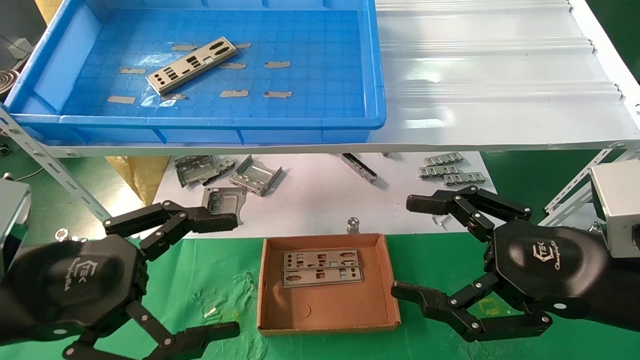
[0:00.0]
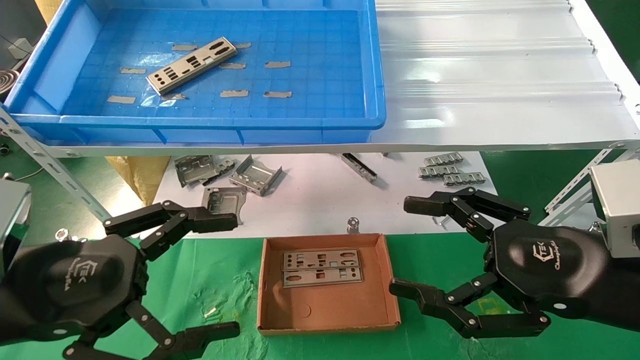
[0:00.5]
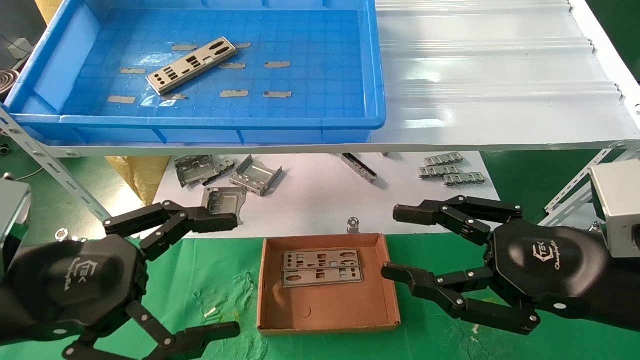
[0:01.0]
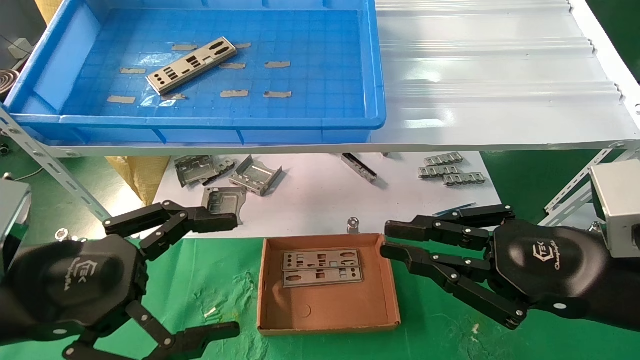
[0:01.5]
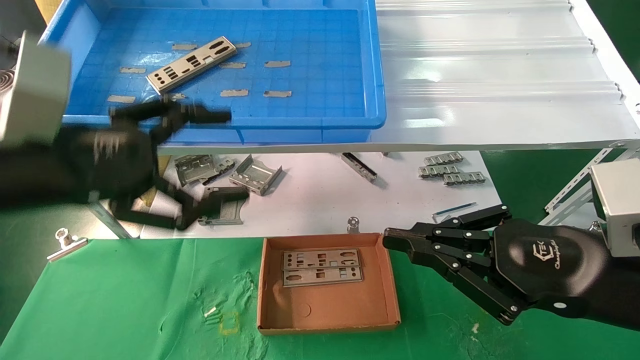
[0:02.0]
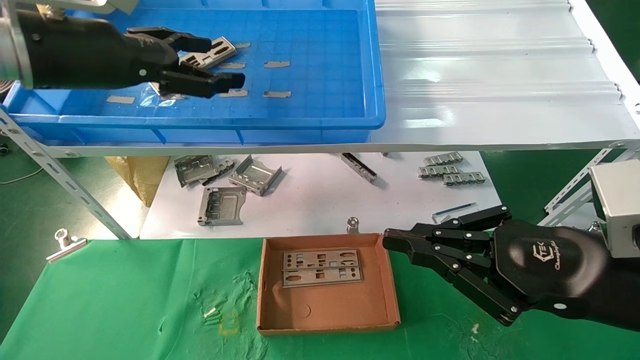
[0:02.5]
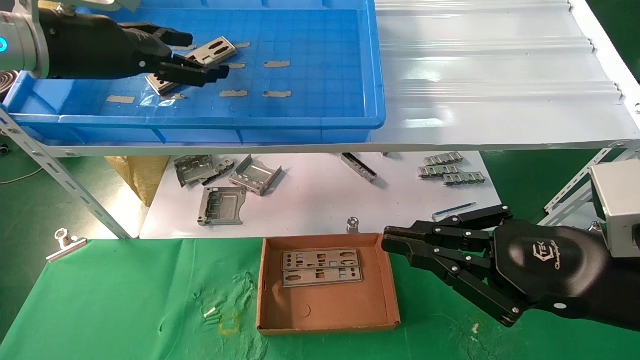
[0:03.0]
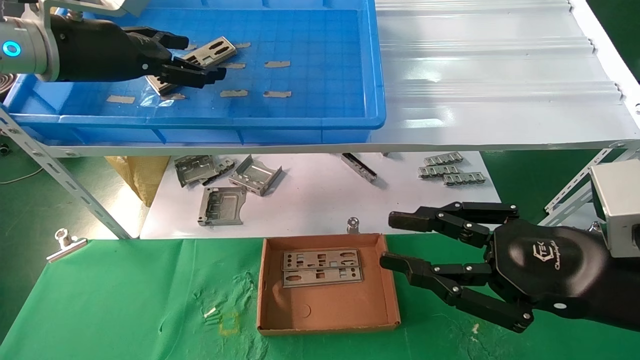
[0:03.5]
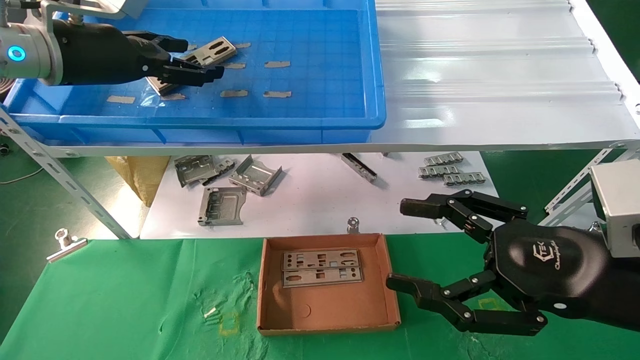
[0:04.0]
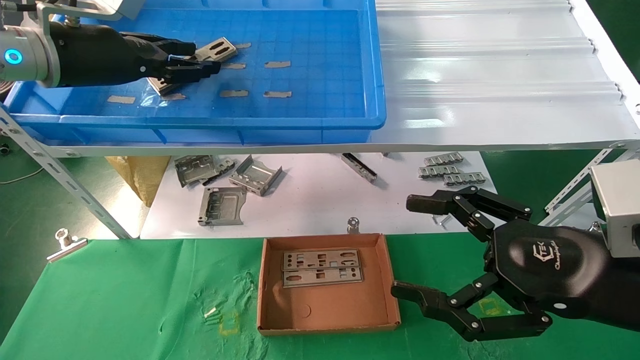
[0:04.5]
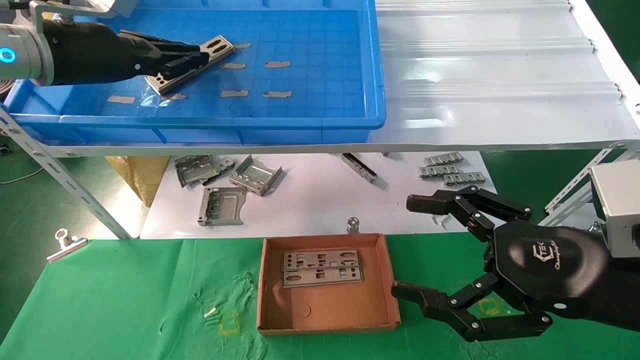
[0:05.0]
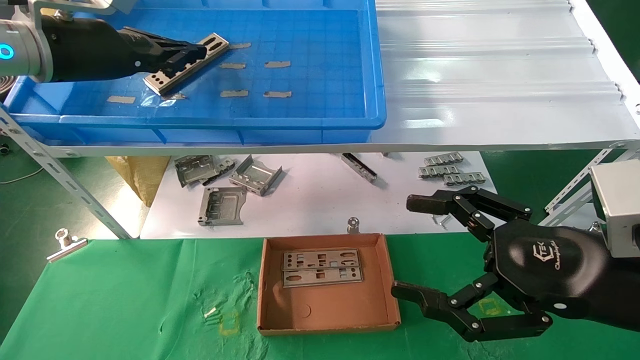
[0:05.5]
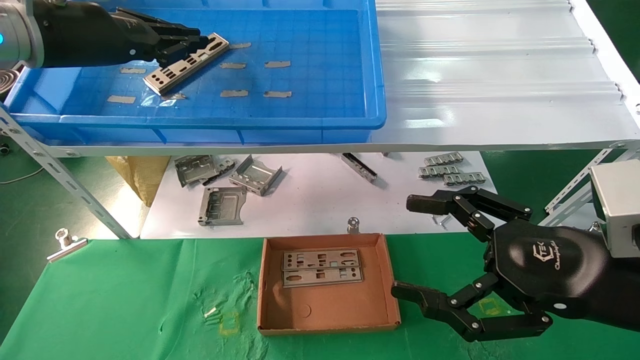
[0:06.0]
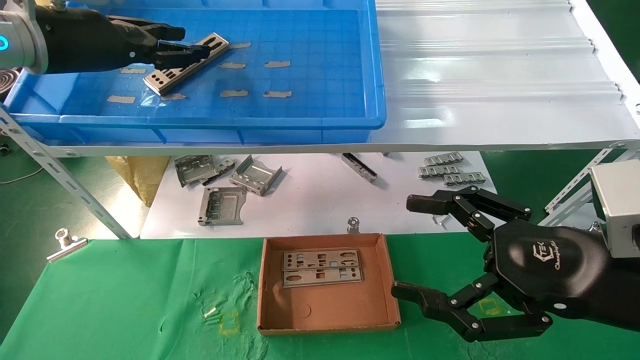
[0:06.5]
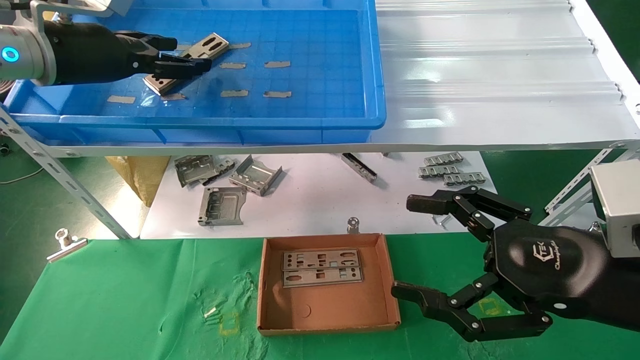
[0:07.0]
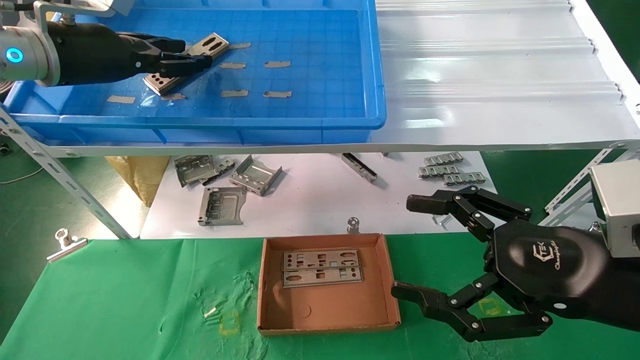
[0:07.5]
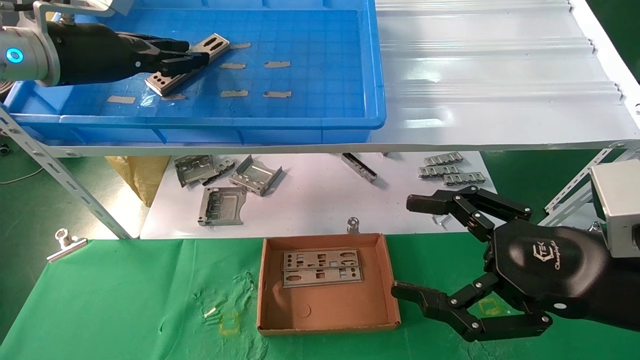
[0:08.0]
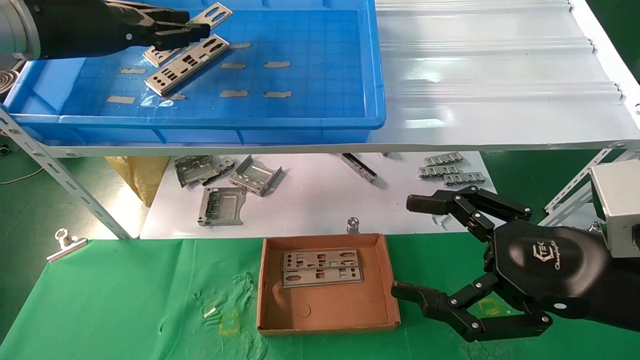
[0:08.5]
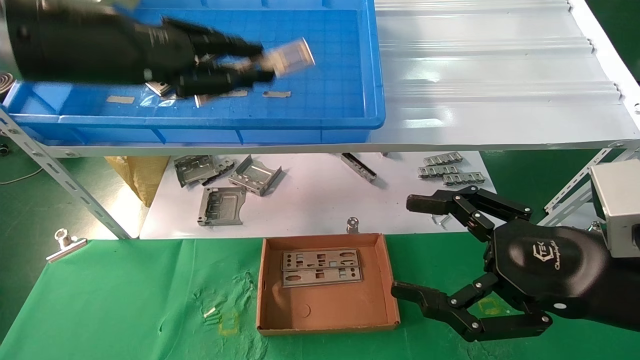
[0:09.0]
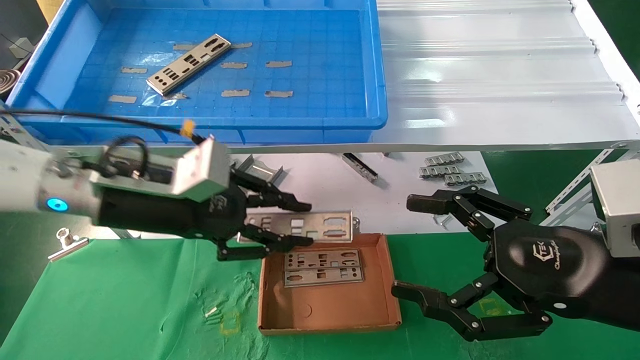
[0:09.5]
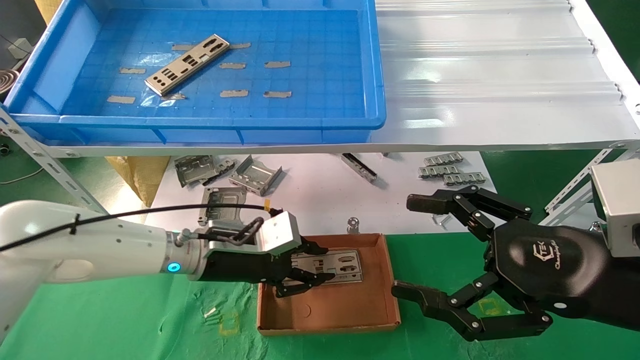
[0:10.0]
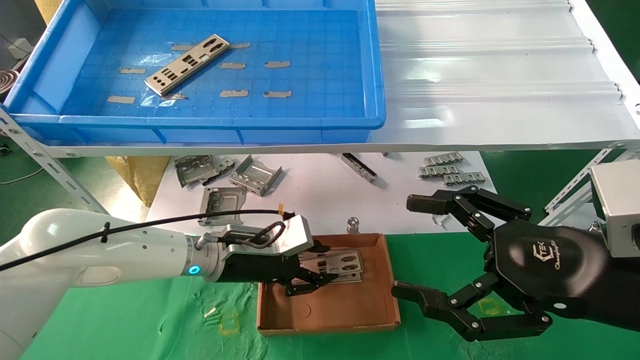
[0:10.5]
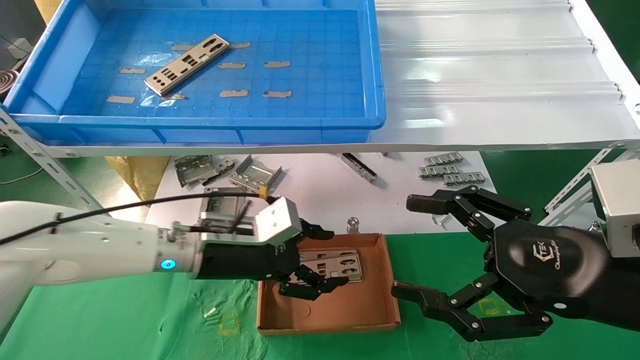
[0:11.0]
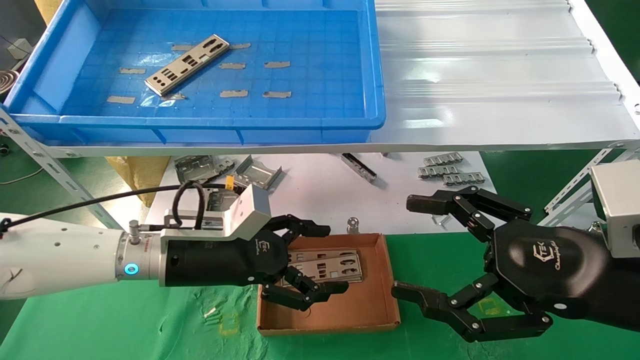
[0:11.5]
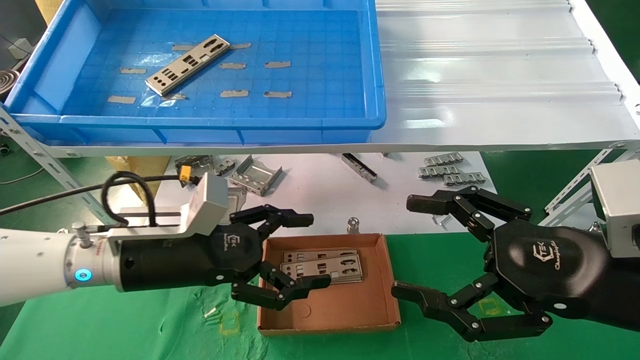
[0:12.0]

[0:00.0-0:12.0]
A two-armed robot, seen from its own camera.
Task of the whole recording: pick up the parts on the tray and put them in the cardboard box.
Step, 0:02.5 to 0:08.0: Pick up the IO bracket from the container box.
Step, 0:08.5 to 0:10.5: Place the IO bracket into the ingredient slot.
0:00.0 to 0:02.0: The right gripper closes up, while the left gripper goes some 10 cm upward and forward.
0:02.0 to 0:04.0: The left gripper shifts about 20 cm forward and upward; the right gripper opens.
0:04.0 to 0:06.0: The left gripper closes its fingers.
0:06.0 to 0:08.0: The left gripper opens and closes again.
0:08.0 to 0:10.0: The left gripper moves downward and to the right, roughly 30 cm.
0:10.0 to 0:12.0: The left gripper travels backward by about 10 cm, and opens its fingers.

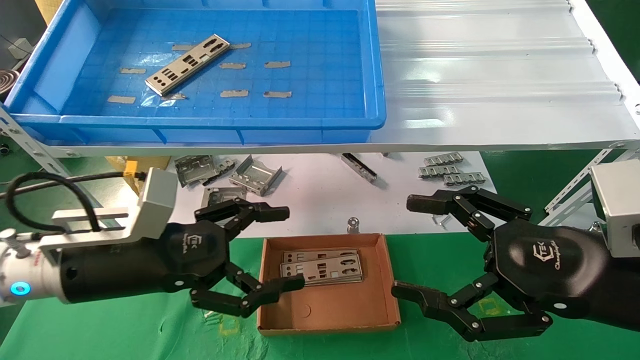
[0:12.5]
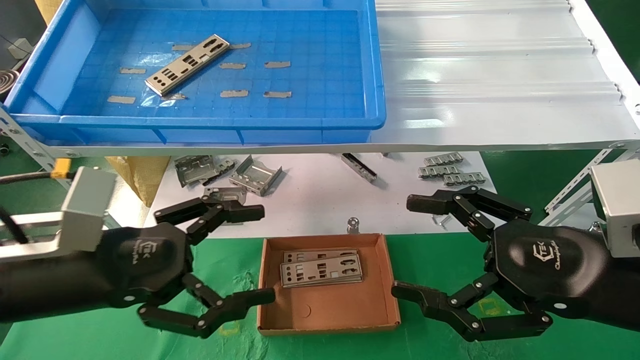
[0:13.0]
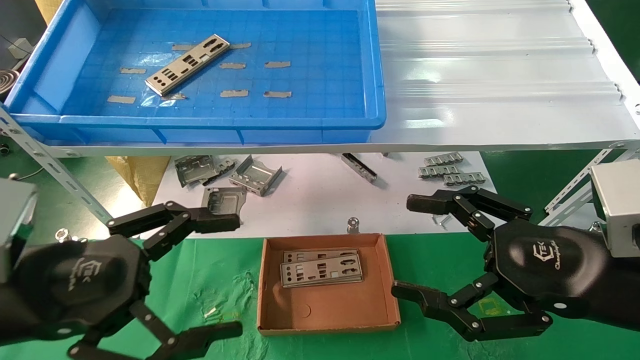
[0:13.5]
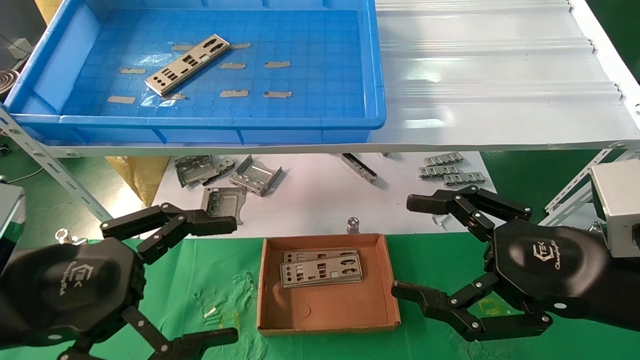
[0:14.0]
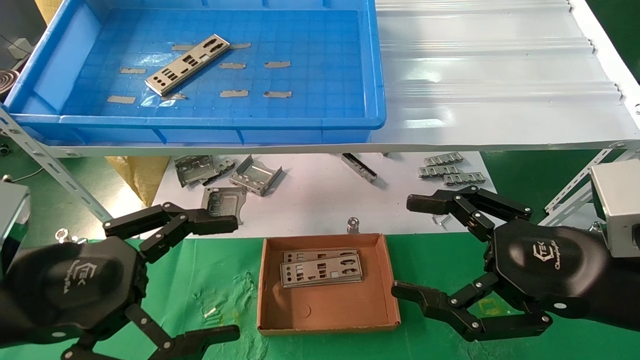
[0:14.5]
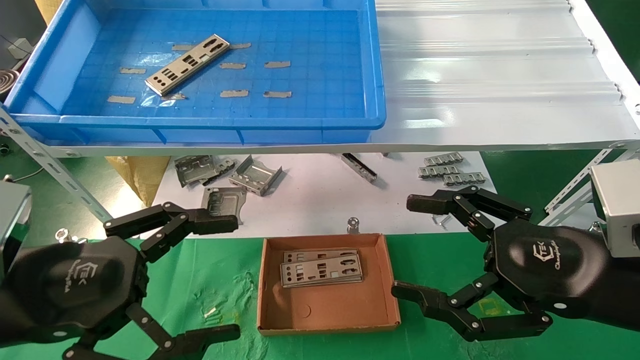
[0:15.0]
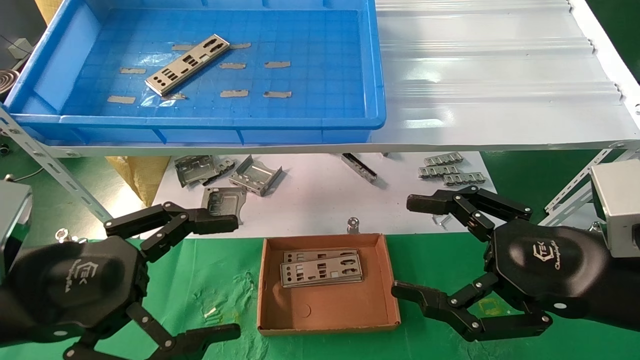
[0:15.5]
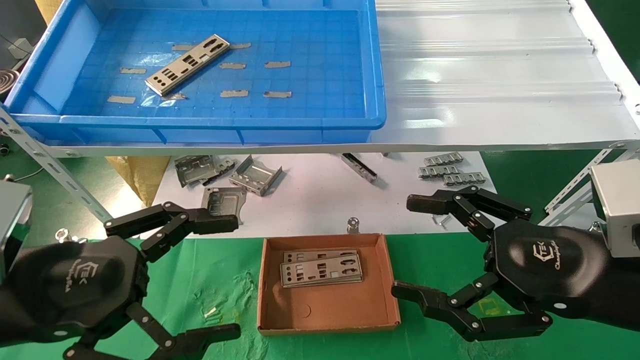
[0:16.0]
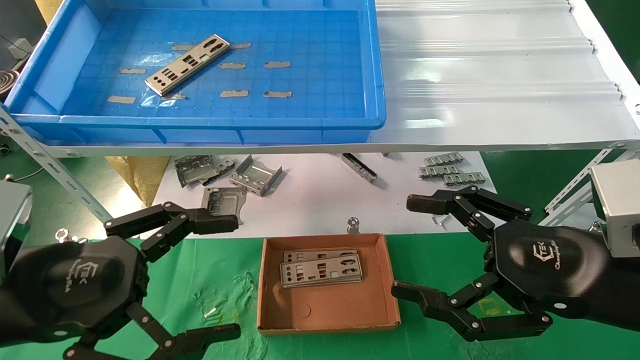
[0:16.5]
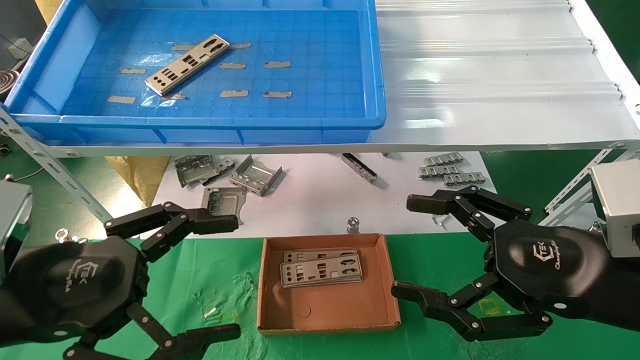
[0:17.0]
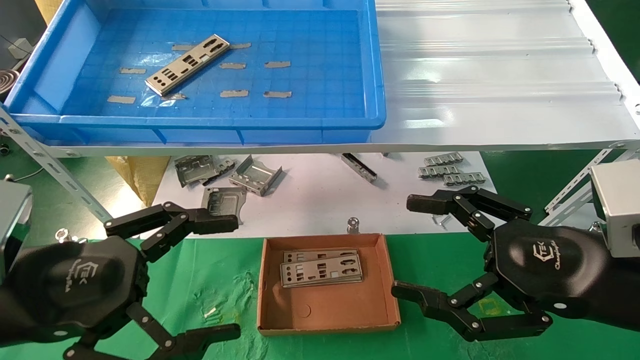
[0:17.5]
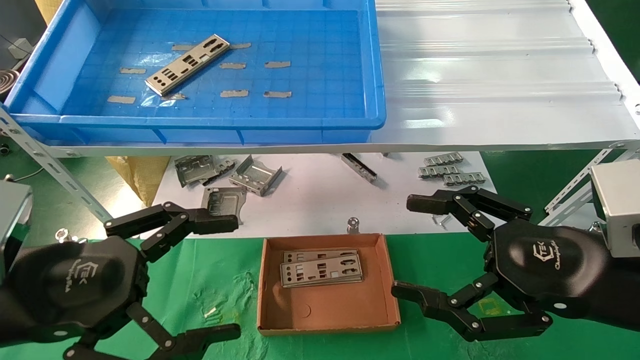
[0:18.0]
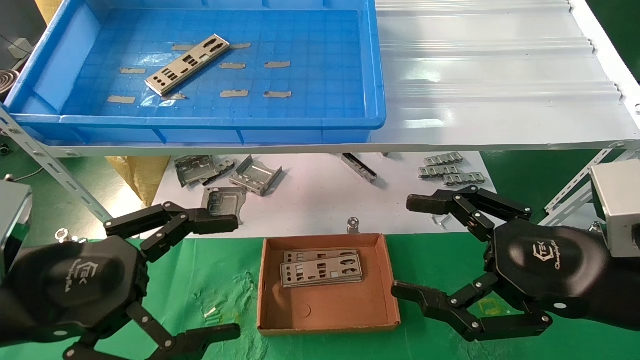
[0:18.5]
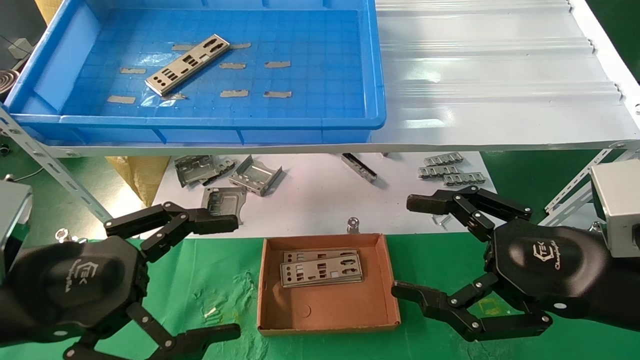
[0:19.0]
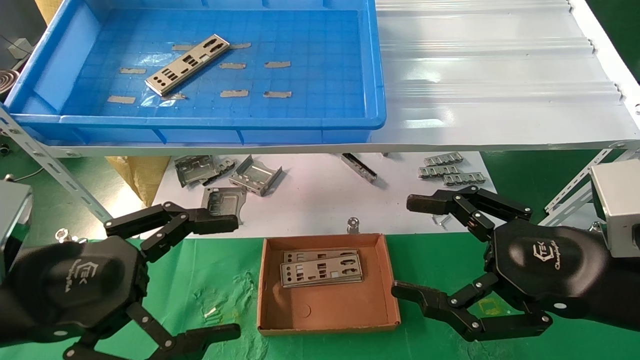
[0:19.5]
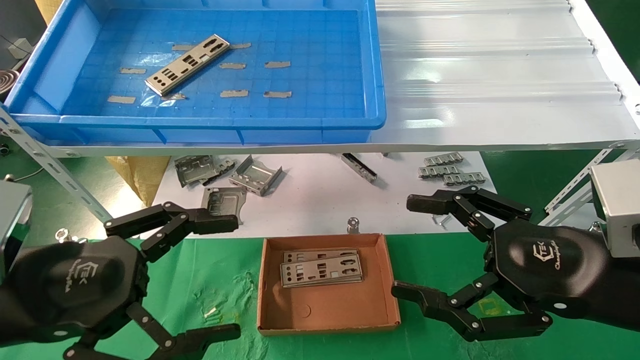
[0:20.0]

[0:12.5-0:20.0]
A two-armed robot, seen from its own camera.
Task of the whole recording: pick up the parts on the tray and put them in the cardboard box.
0:12.5 to 0:14.5: The left gripper travels backward by about 10 cm.
0:14.5 to 0:20.0: Both grippers stay about where they are.
